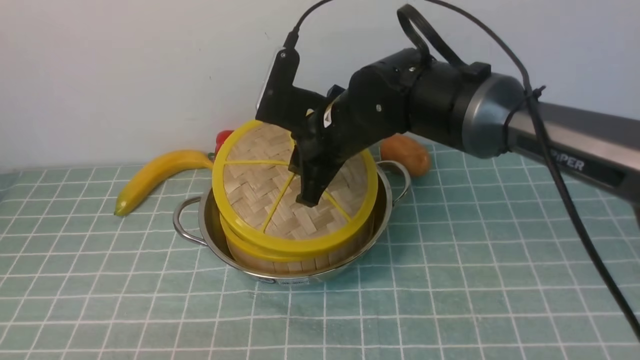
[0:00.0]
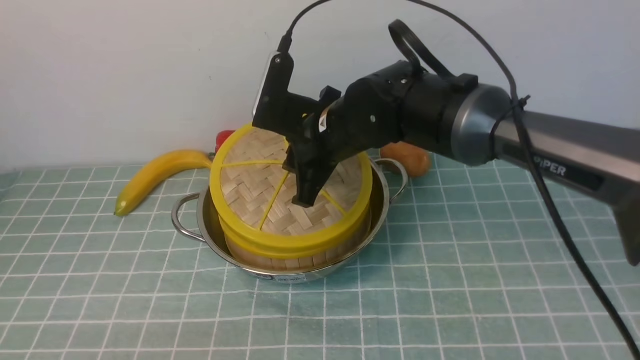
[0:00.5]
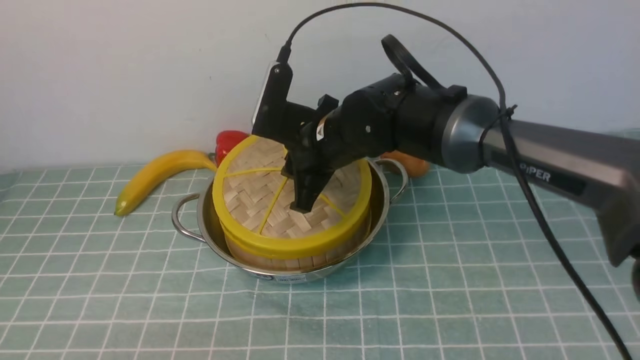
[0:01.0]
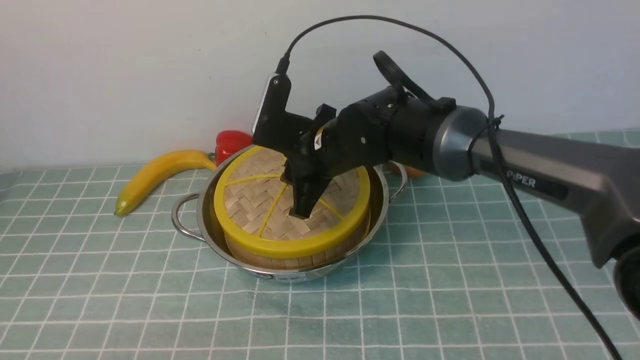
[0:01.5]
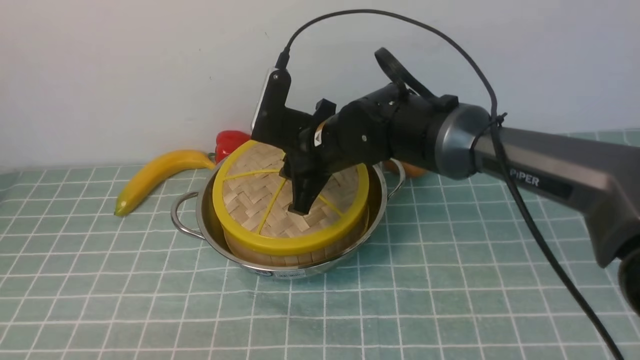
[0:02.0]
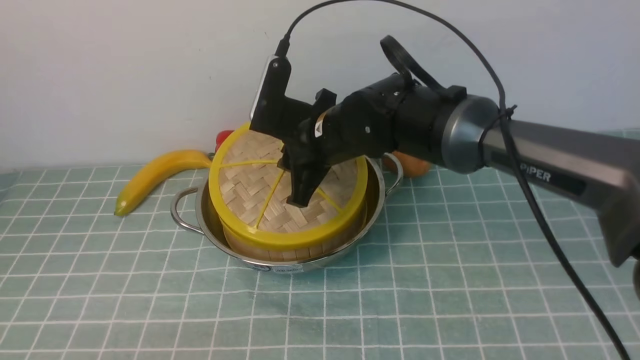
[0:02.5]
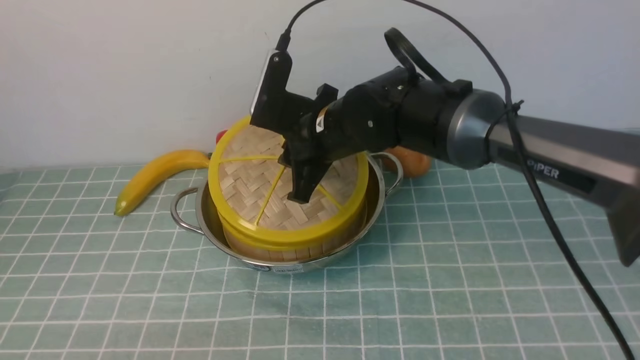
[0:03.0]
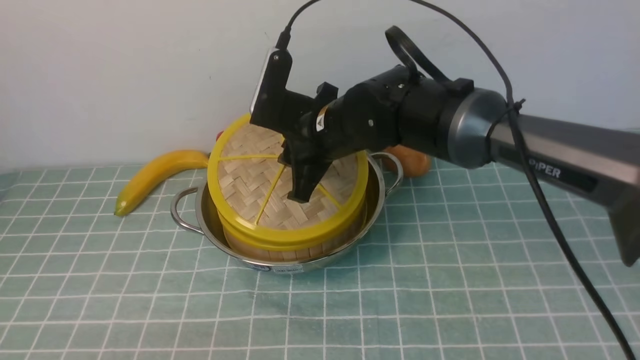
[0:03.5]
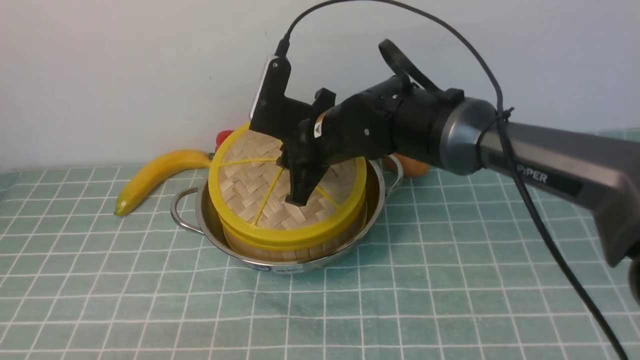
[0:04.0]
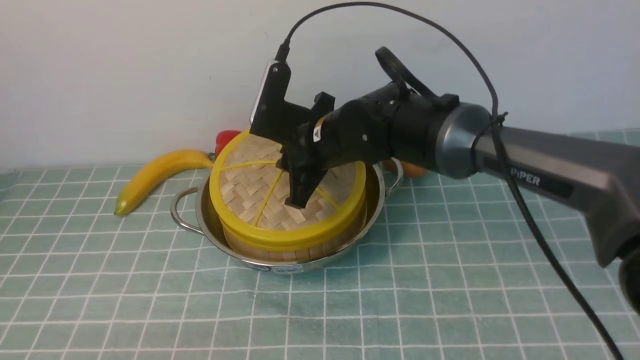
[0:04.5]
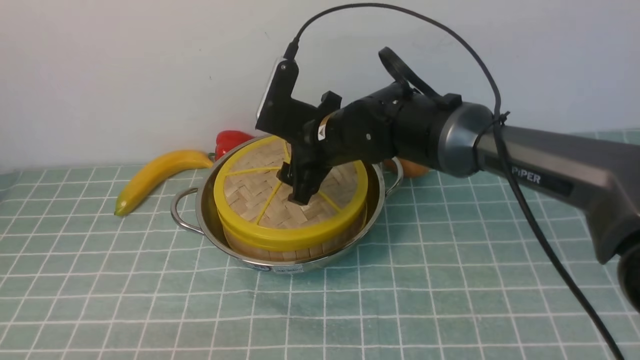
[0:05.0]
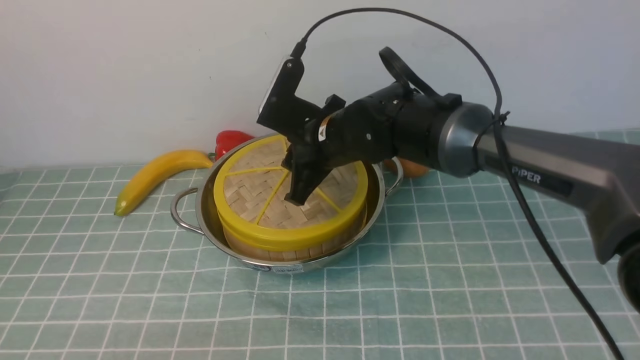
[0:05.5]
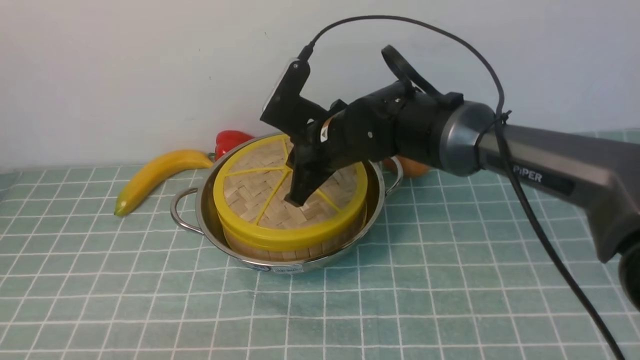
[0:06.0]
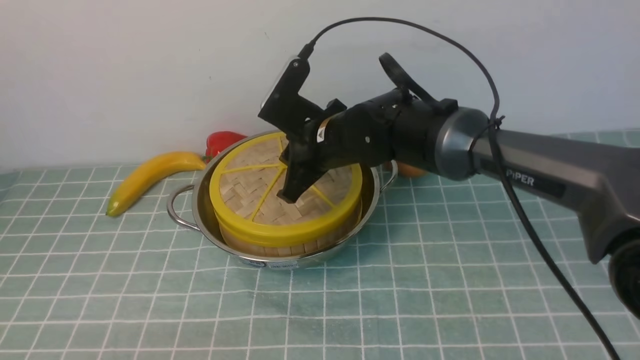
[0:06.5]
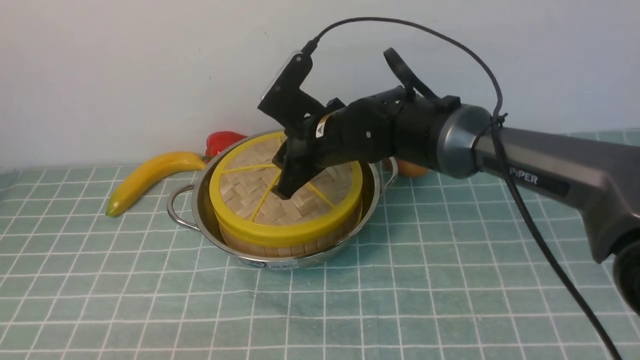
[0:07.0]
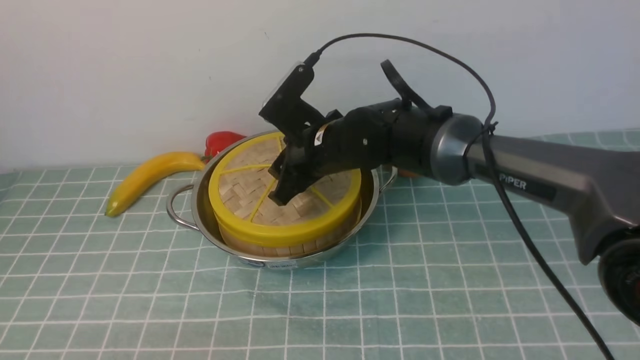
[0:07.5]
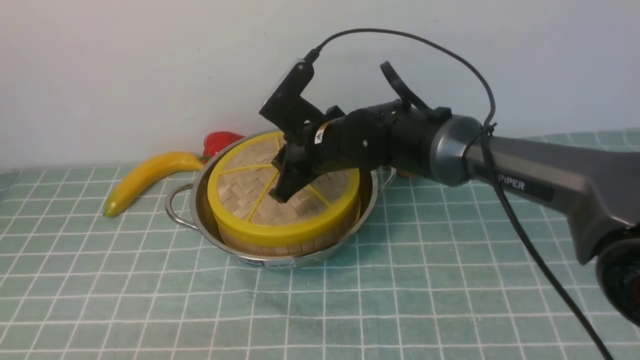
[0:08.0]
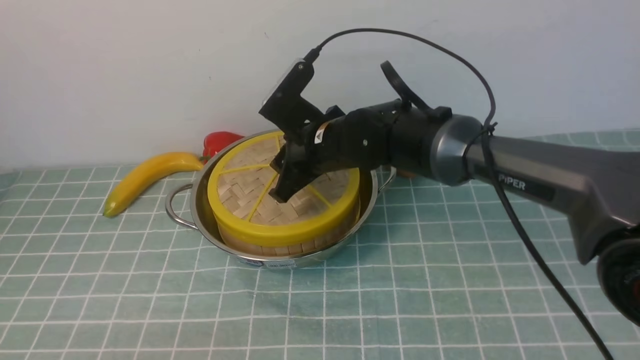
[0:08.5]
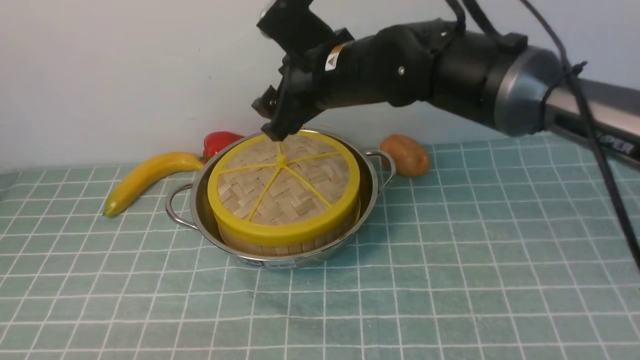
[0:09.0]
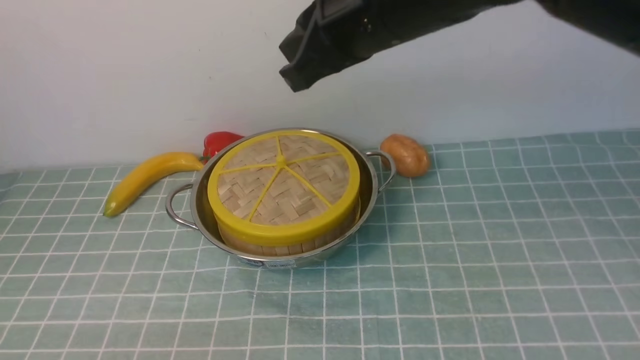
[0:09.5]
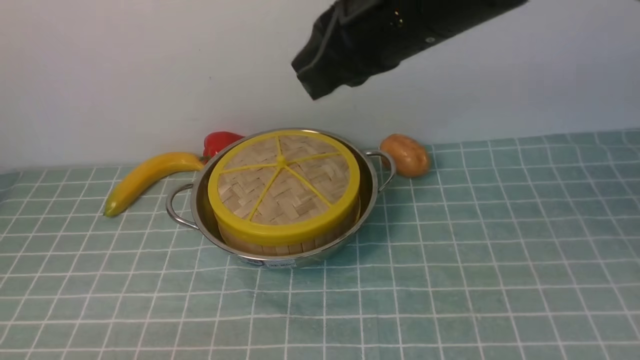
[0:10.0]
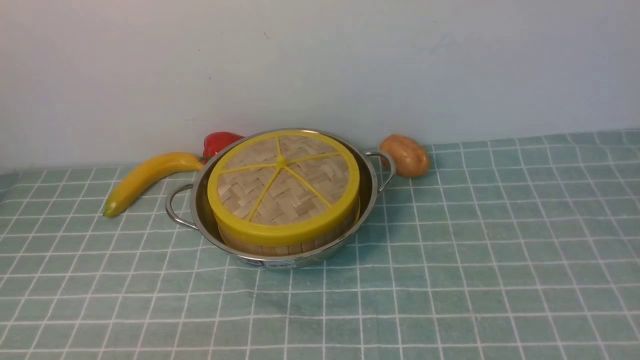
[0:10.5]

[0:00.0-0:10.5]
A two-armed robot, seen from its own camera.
Task of the whole recording: place the steamer in the pot on the blue tablecloth, and put the lid on the steamer.
Step, 0:00.0 to 0:09.0: use the right arm to place the steamer lid on the steamer.
0:02.0 to 0:04.0: The grippers make only small movements.
0:04.0 to 0:06.5: The right gripper opens, then closes again.
0:06.5 to 0:08.5: The right gripper opens its fingers.
0:08.5 to 0:10.5: The right gripper is displaced to the right and backward by about 40 cm, and closes.

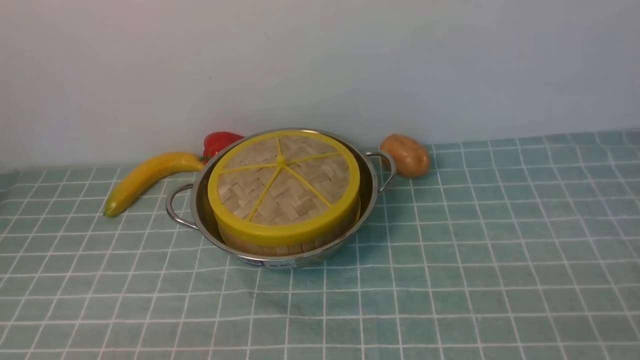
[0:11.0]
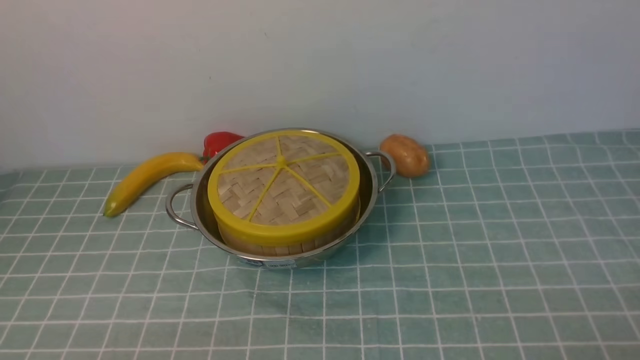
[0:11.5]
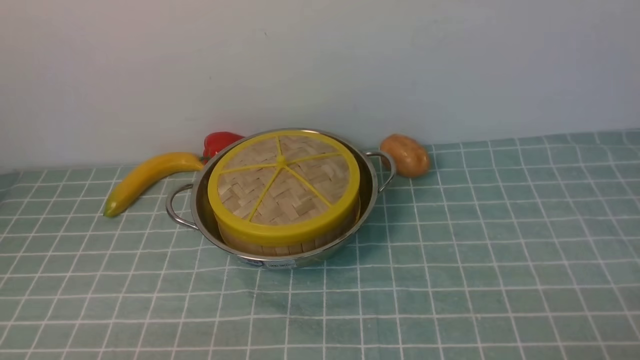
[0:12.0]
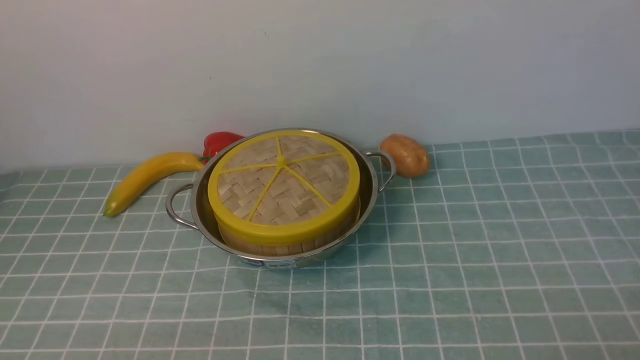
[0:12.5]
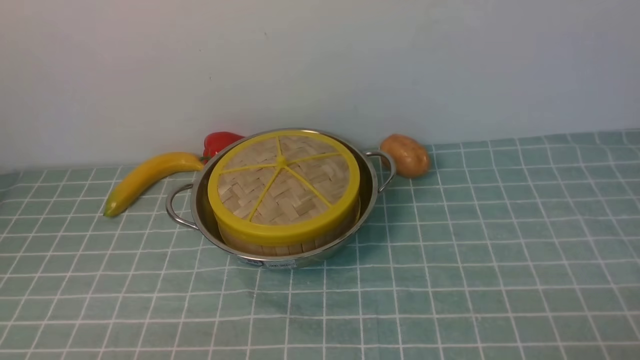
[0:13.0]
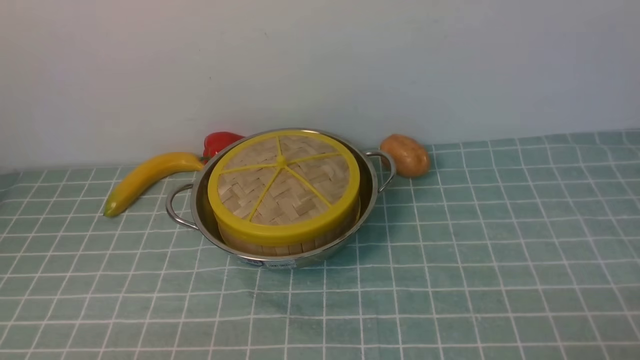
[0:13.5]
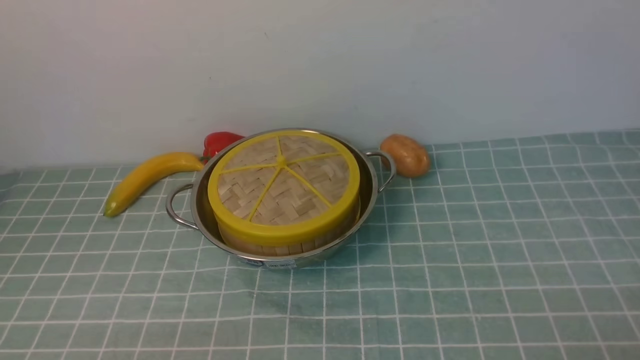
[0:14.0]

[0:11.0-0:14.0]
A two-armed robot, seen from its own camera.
Task of the whole recording: place the steamer in the pot on the blue tablecloth, and put the lid on the steamer.
0:12.5 to 0:14.0: Both grippers stay about where they are.
